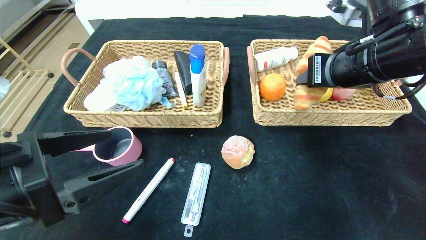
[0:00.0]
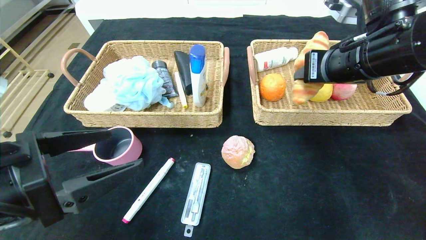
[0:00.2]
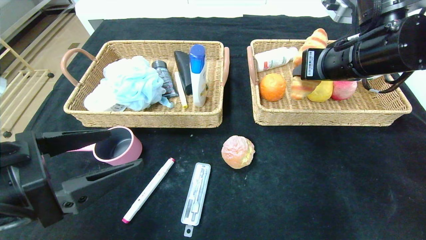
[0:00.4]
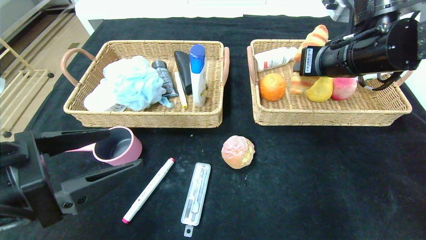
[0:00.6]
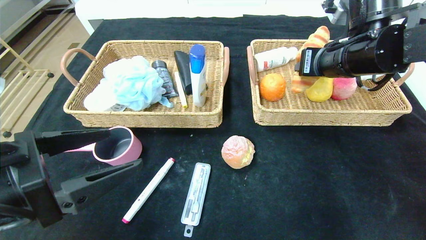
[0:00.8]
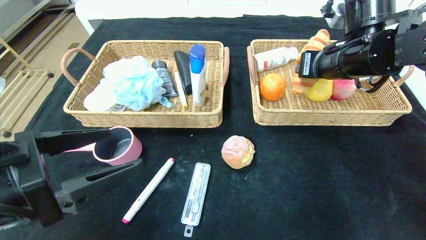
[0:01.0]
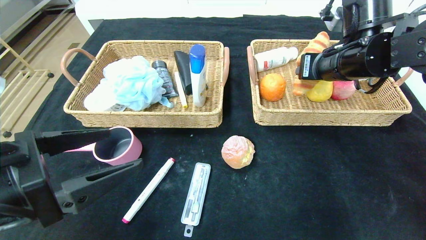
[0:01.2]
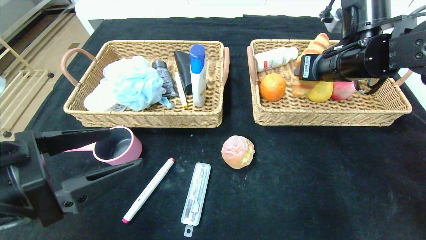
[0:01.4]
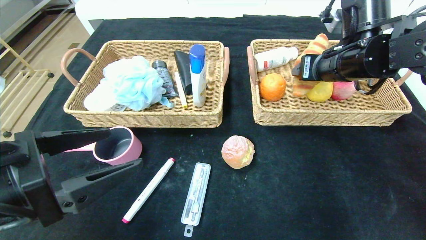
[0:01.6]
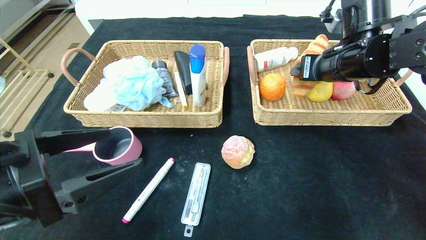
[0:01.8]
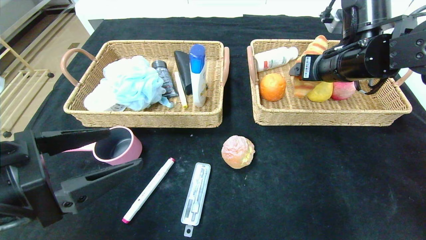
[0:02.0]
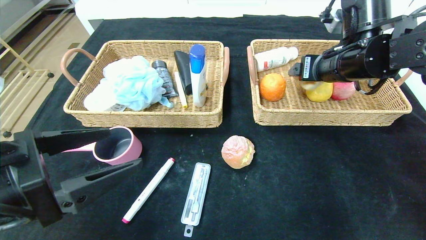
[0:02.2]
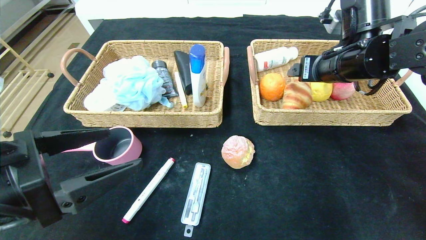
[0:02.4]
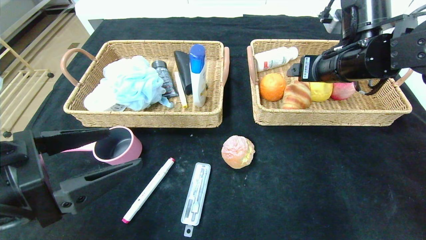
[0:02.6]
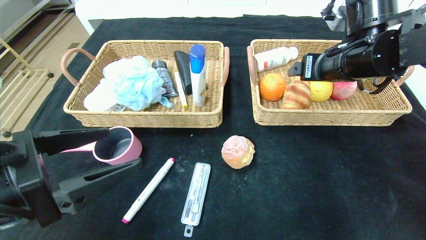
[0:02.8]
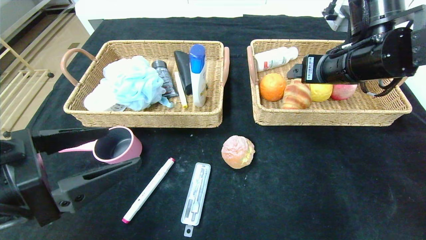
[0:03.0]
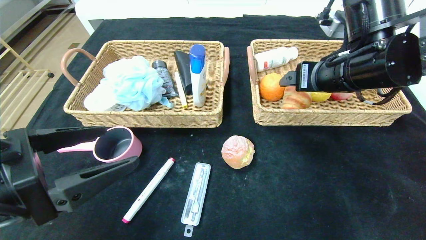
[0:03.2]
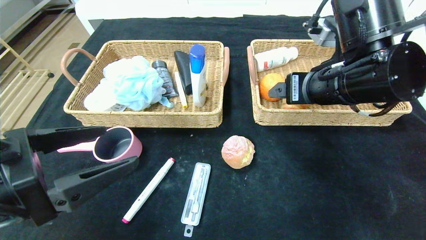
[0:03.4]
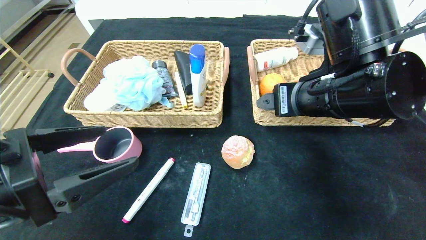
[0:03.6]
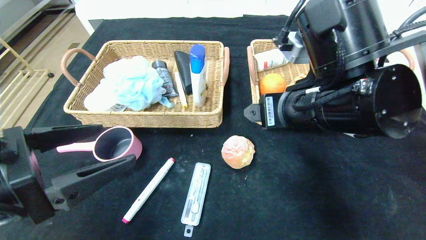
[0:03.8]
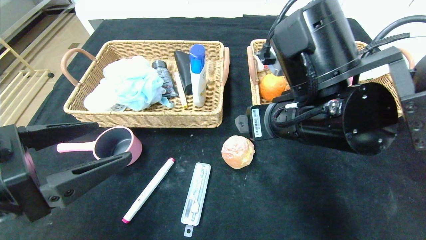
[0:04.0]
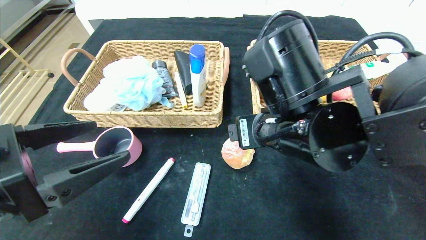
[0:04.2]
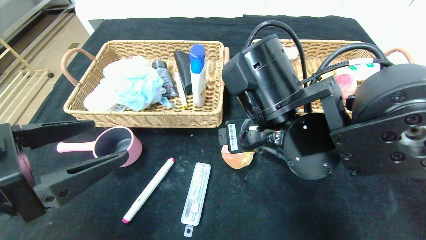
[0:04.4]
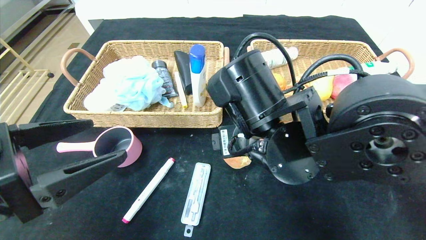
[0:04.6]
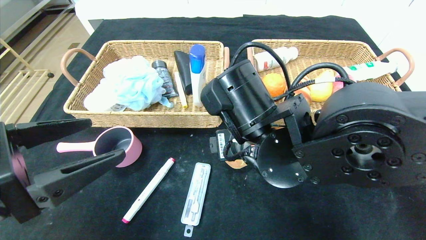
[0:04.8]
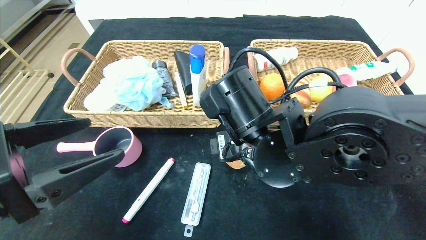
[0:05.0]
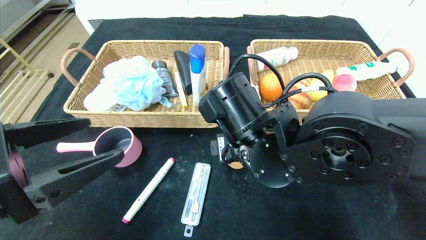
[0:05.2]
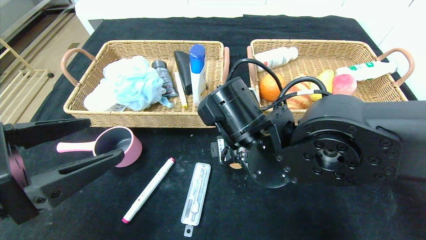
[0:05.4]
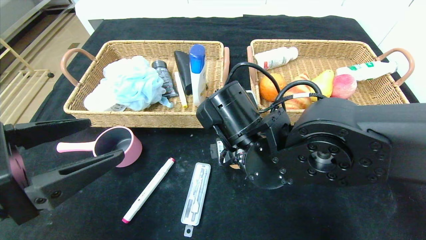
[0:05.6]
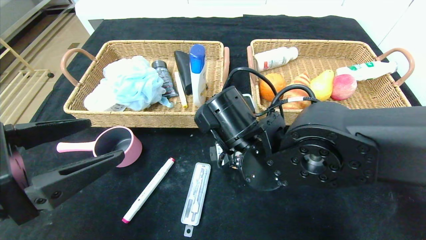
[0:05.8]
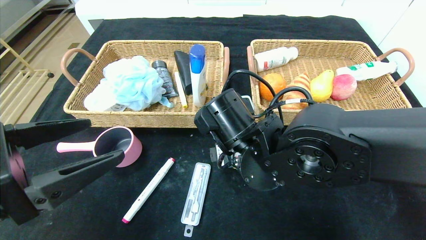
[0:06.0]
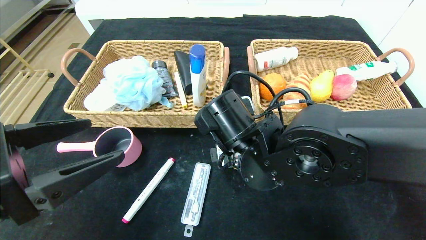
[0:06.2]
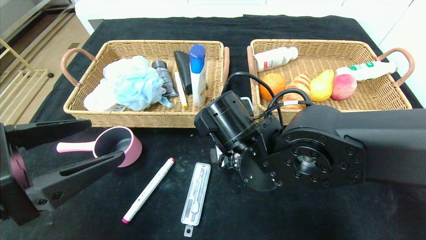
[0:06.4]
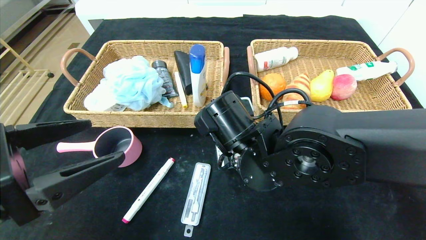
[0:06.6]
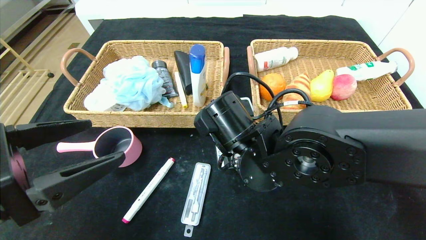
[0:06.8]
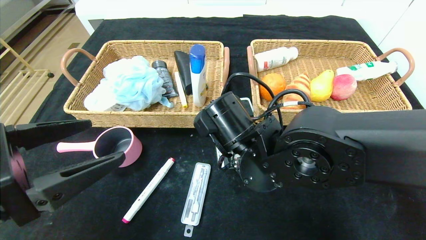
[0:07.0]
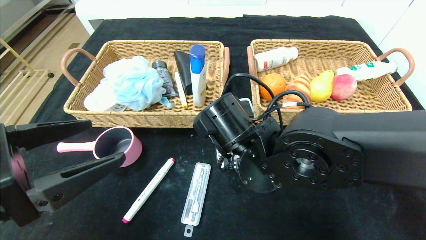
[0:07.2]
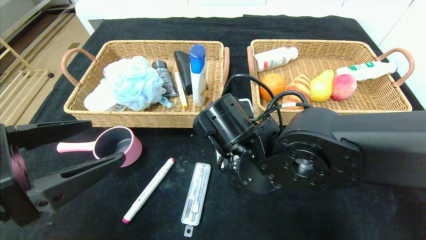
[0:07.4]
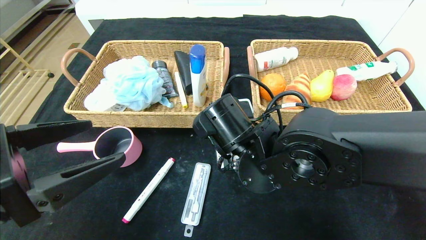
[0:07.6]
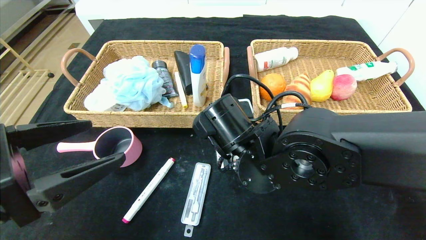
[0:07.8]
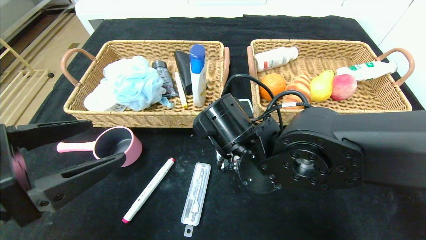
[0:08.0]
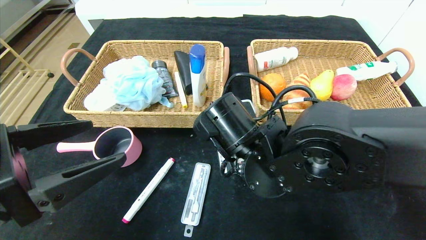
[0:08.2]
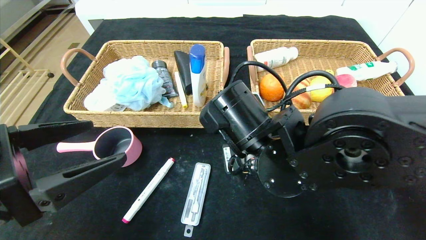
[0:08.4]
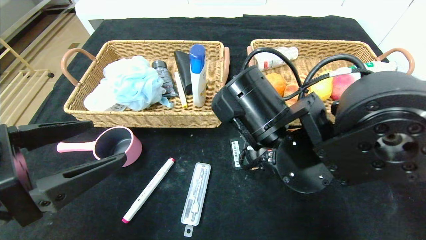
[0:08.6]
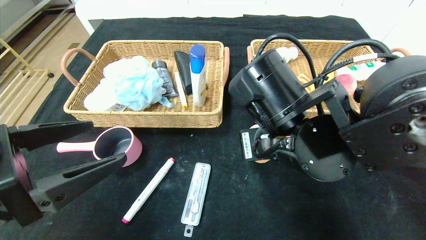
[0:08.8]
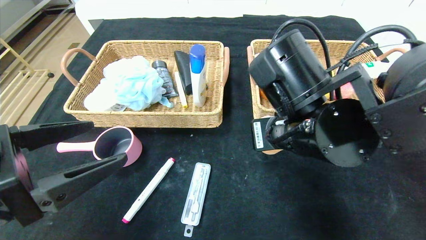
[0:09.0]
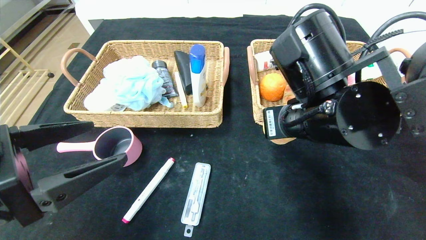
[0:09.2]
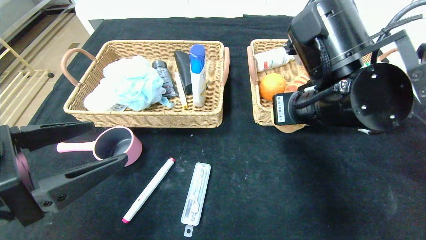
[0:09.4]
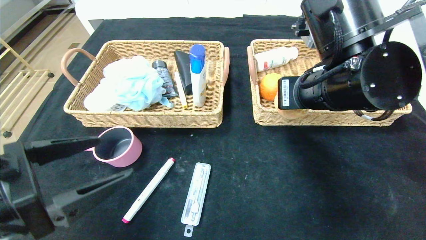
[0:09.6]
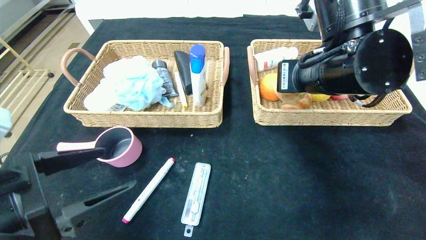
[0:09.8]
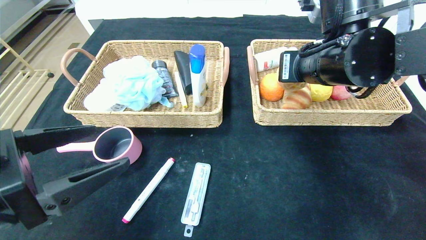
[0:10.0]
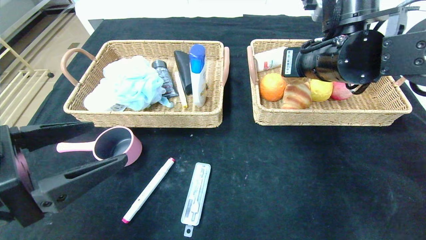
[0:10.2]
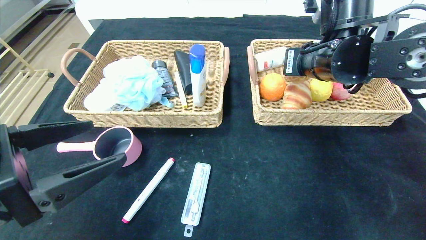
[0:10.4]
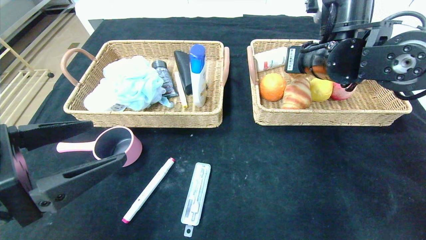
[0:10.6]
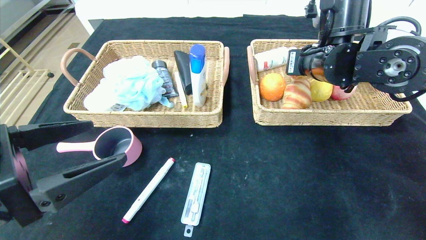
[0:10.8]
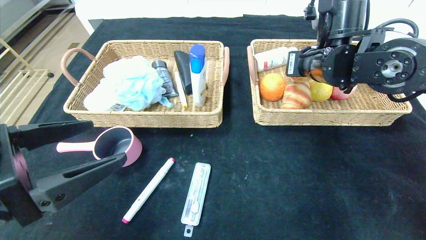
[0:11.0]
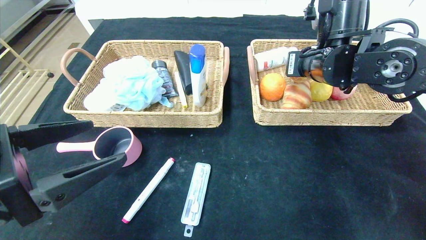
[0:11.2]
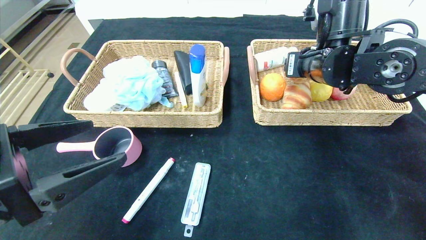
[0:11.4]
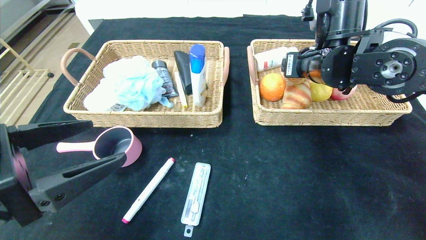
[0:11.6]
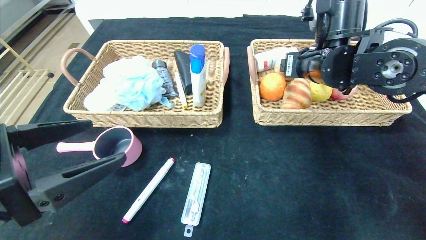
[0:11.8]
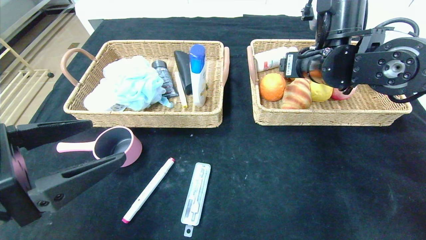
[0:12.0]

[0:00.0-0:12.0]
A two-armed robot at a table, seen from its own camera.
Step, 0:00.0 to 0:03.8: Pick up the croissant and put it in the right basket.
0:00.0 to 0:01.6: The right gripper travels forward by some 5 cm, and opens up.
0:01.6 to 0:03.0: The right gripper opens.
0:03.0 to 0:04.4: The right gripper heads to the left, backward and downward, covering about 20 cm.
0:04.4 to 0:06.0: The right gripper heads downward, covering roughly 5 cm.
0:06.0 to 0:07.6: The right gripper closes.
0:07.6 to 0:09.0: The right gripper is displaced upward and to the right by roughly 10 cm.
0:09.0 to 0:10.4: The right gripper travels forward, to the right and upward by some 15 cm.
0:10.4 to 0:12.0: The right gripper opens its fingers.

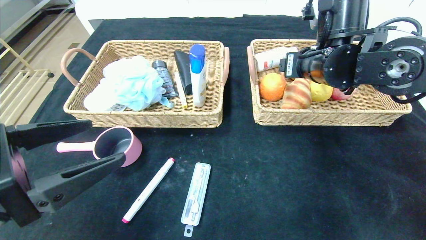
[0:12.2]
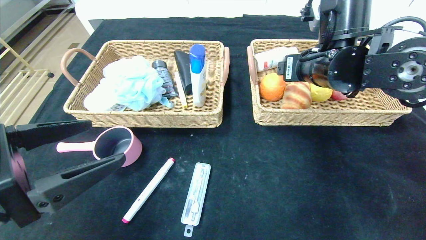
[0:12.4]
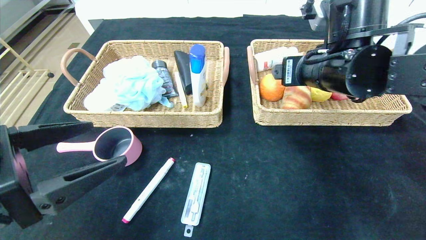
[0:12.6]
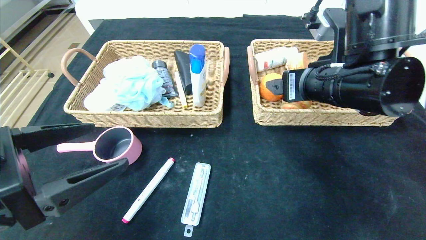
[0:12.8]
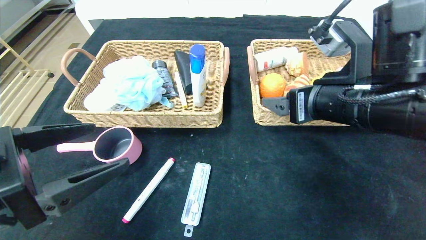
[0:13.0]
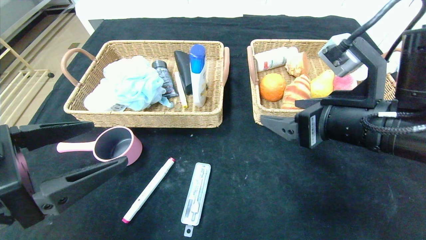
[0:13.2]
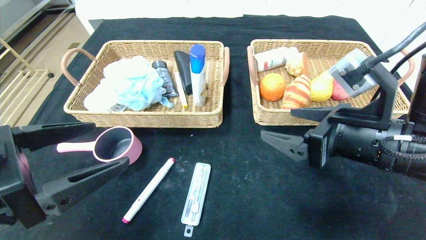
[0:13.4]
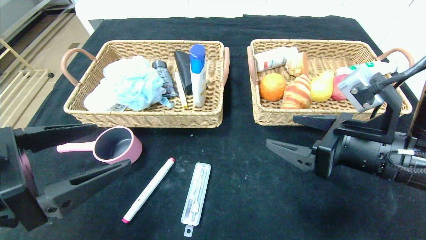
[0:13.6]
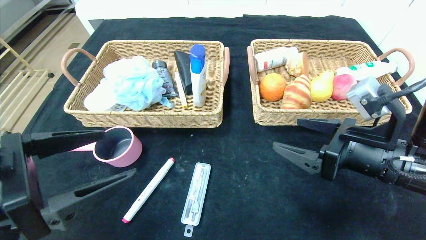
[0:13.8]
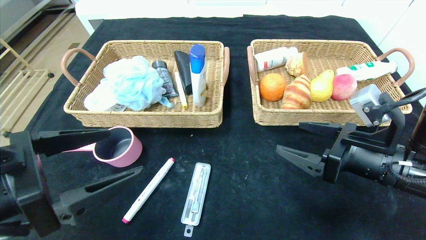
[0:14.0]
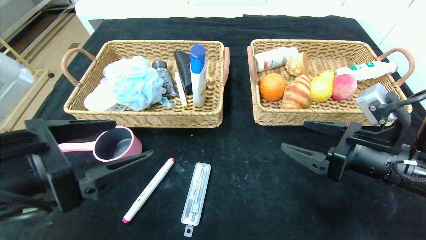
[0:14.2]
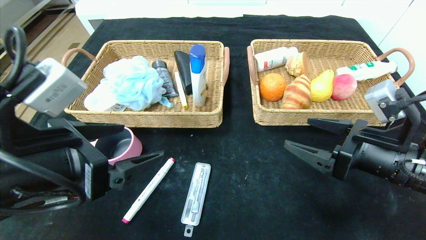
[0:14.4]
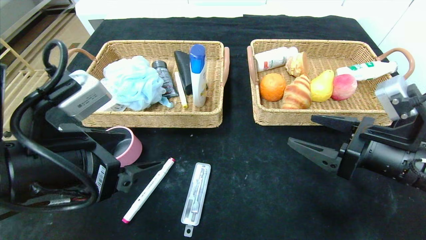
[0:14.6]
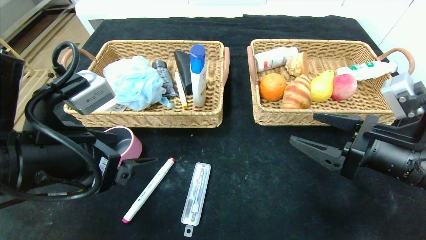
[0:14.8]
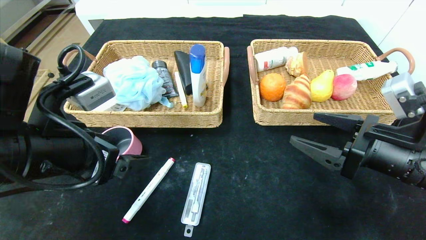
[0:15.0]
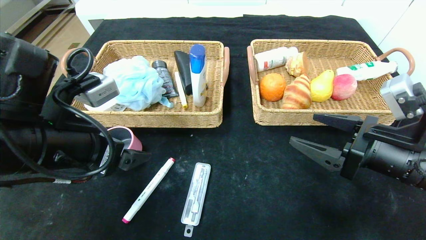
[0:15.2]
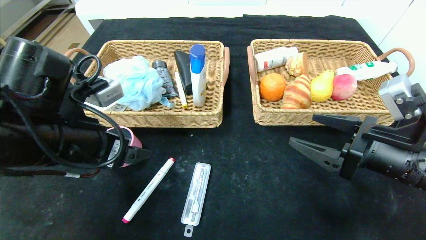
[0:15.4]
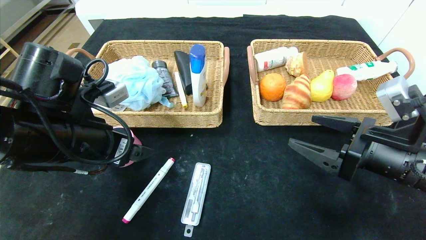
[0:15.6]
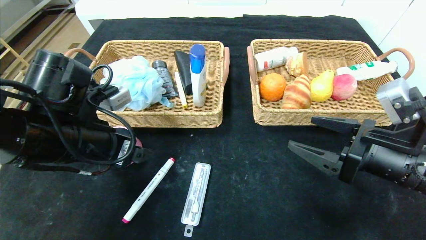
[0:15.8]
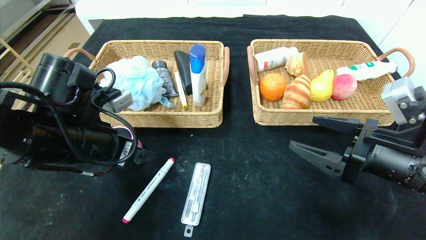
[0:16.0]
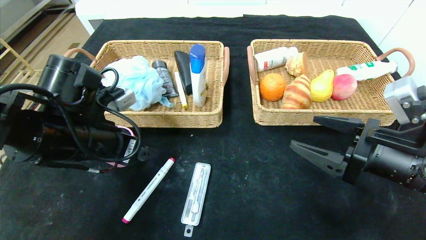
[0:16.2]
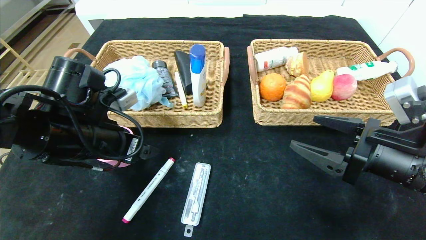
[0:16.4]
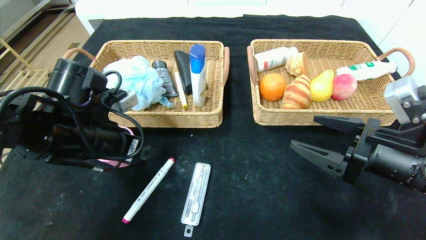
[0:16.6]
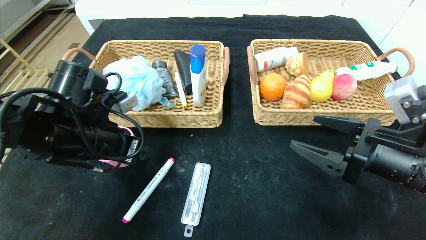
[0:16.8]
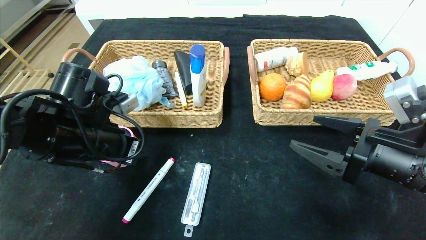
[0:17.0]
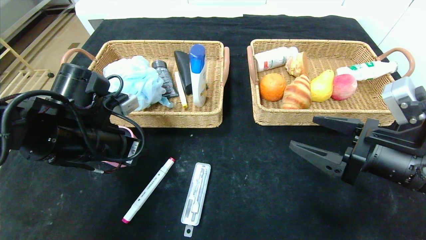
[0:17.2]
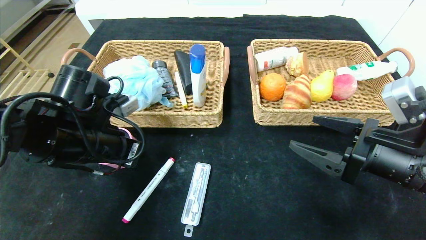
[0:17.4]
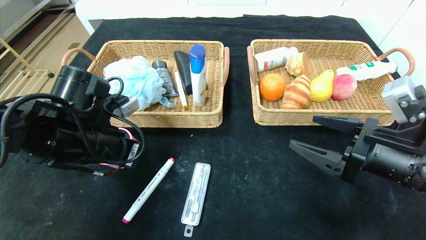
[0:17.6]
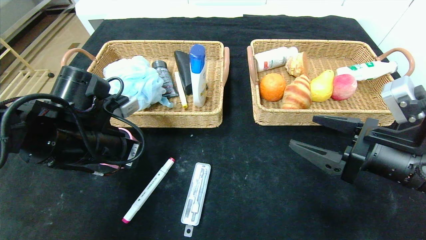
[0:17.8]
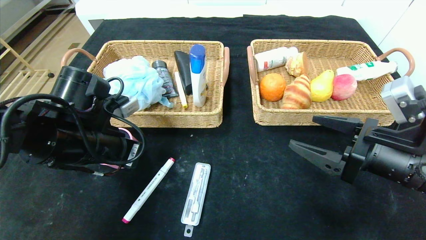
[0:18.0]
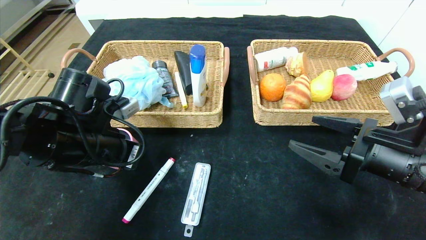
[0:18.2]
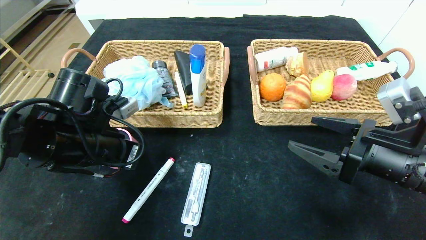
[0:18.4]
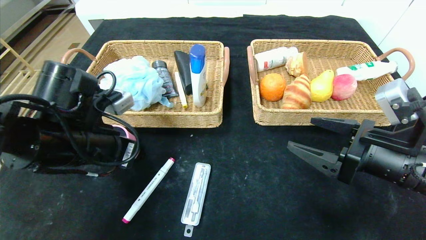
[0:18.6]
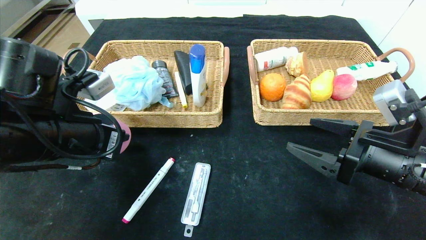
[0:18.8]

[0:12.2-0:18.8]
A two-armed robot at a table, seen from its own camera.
Step, 0:12.2 to 0:14.6: Pick up the round bread and put it in the right basket.
0:12.2 to 0:13.8: The right gripper heads backward, downward and to the right, covering about 15 cm.
0:13.8 to 0:15.4: The left gripper heads forward, covering some 10 cm.
0:15.4 to 0:17.2: The left gripper ends up about 5 cm from where it was, and closes its fingers.
0:17.2 to 0:18.8: The grippers move only a little.
